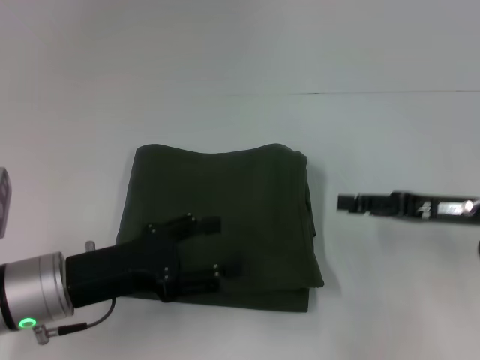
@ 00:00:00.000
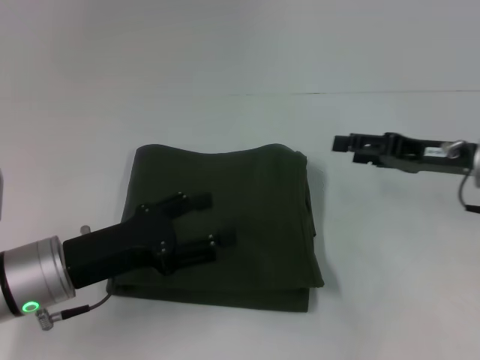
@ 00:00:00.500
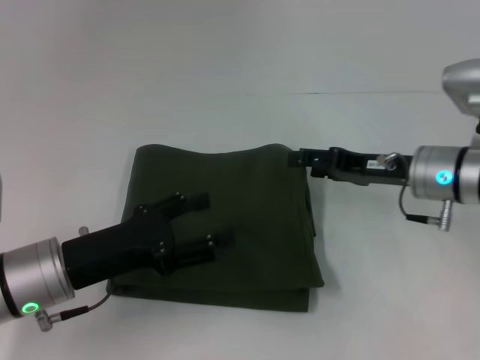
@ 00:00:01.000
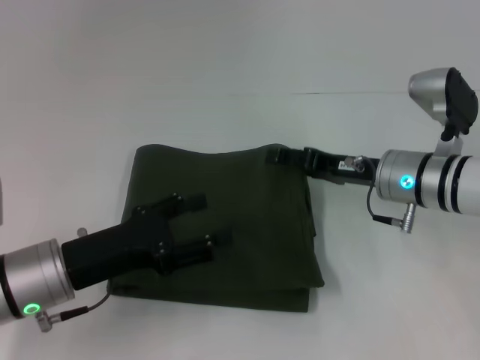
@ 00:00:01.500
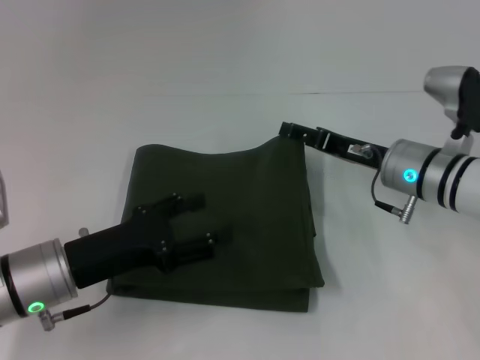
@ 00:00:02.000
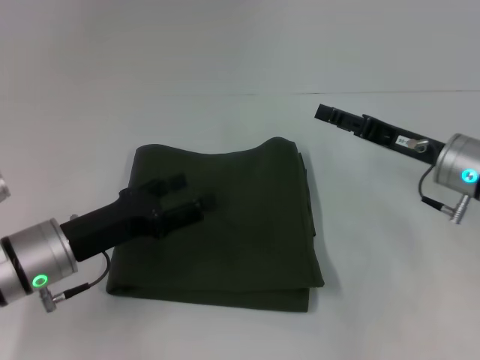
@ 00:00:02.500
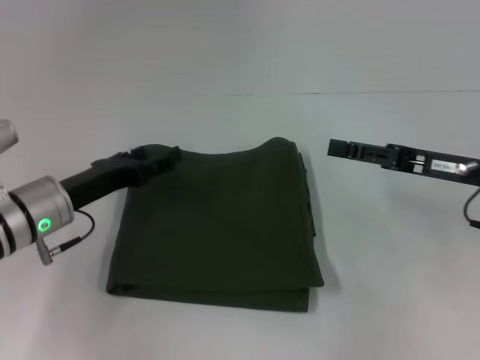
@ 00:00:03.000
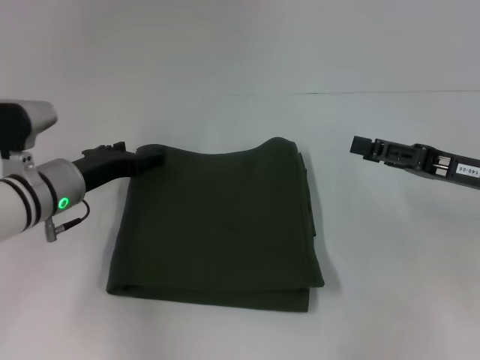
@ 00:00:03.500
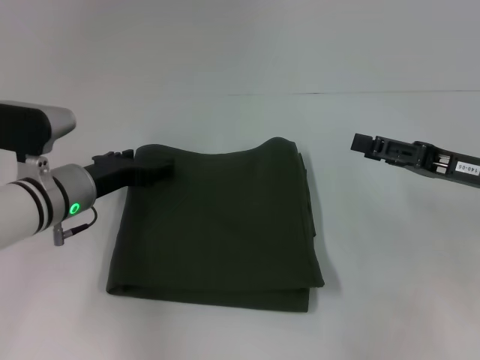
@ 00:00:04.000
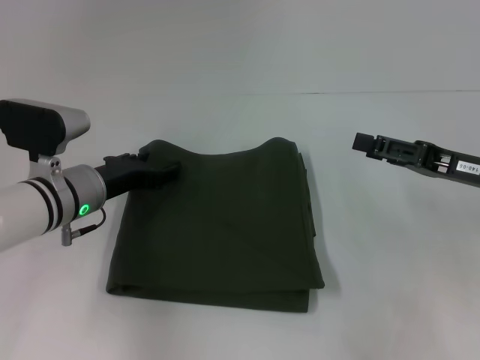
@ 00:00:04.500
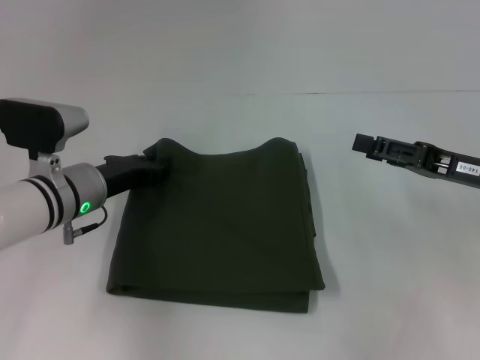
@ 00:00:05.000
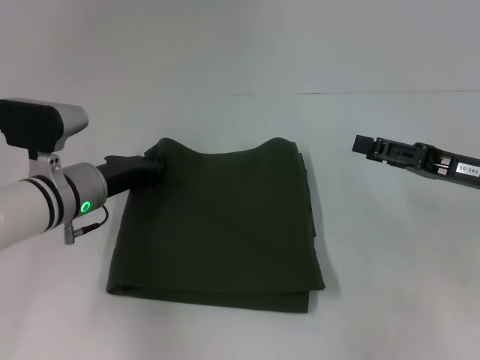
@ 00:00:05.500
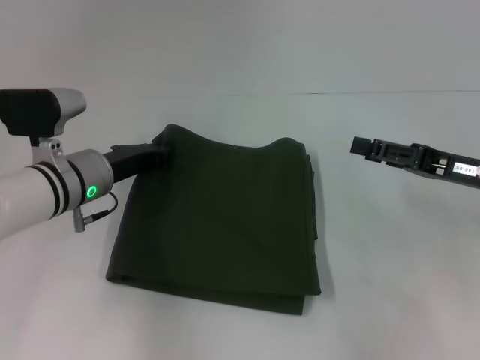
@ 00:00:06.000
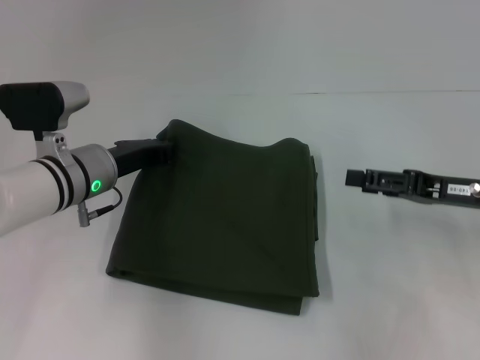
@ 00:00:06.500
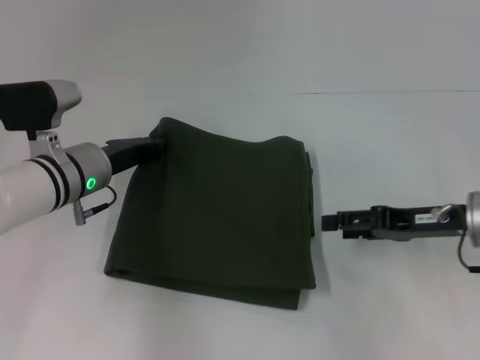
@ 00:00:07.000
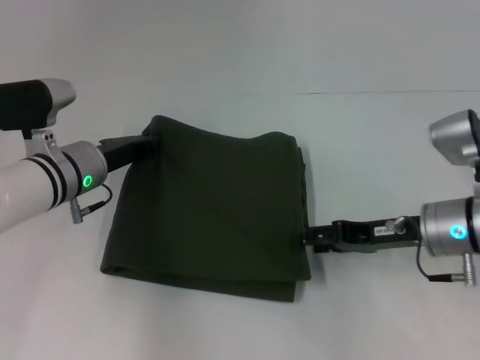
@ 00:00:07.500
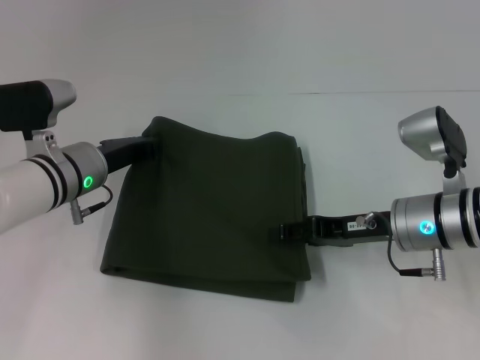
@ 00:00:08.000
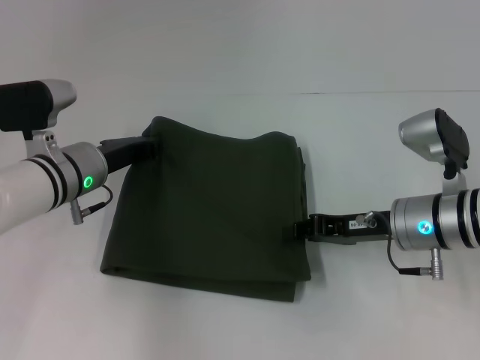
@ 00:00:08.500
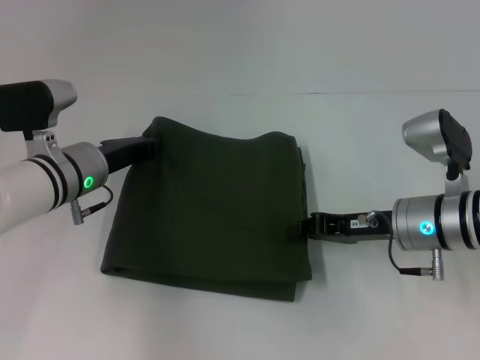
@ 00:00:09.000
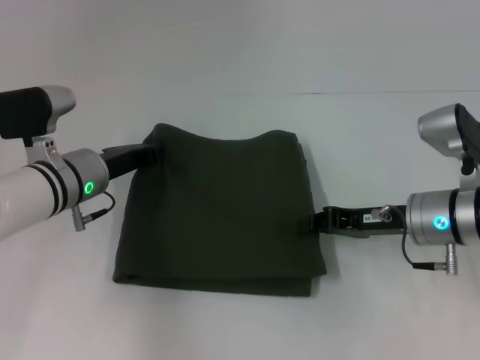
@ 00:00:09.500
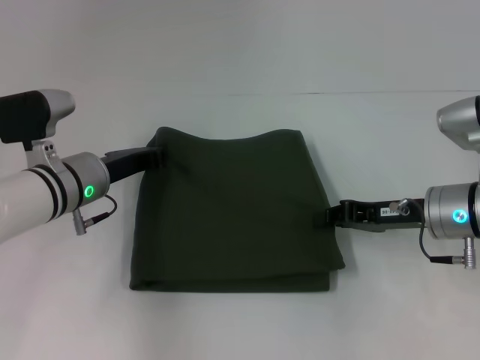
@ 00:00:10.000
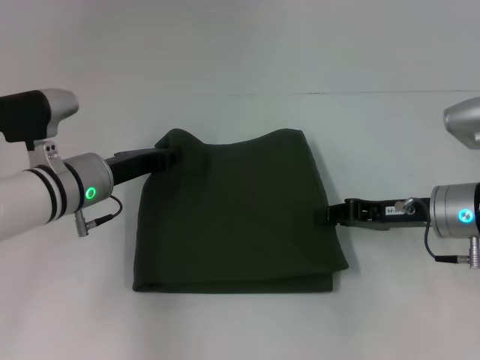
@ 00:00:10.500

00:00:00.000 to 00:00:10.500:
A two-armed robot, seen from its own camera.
00:00:00.000 to 00:00:02.000: The right gripper shifts about 10 cm to the left and forward, and opens its fingers.
00:00:02.000 to 00:00:04.000: The left gripper goes roughly 10 cm forward; the right gripper moves to the right and backward, approximately 10 cm.
00:00:04.000 to 00:00:06.500: The left gripper closes its fingers.
00:00:06.500 to 00:00:08.500: The right gripper goes roughly 10 cm to the left.
00:00:08.500 to 00:00:10.500: The grippers move only a little.

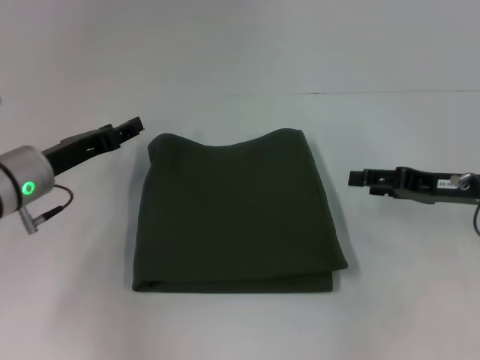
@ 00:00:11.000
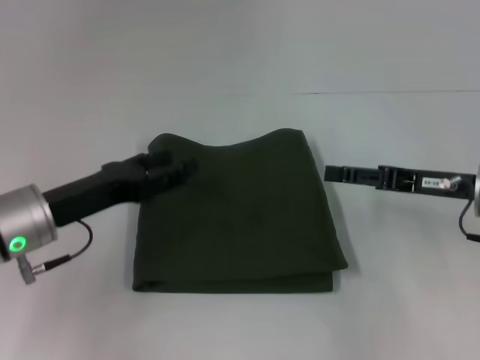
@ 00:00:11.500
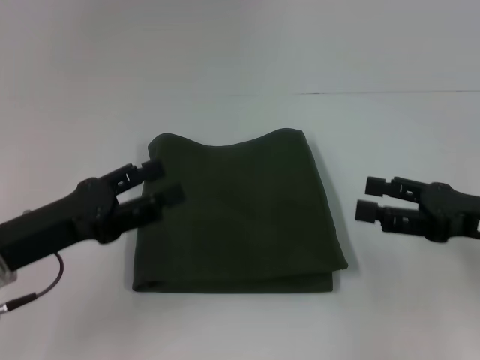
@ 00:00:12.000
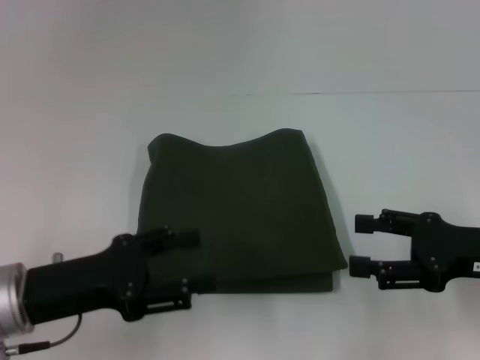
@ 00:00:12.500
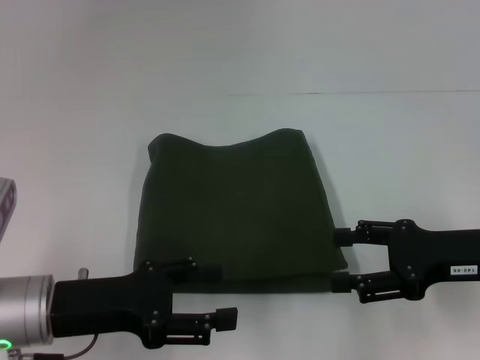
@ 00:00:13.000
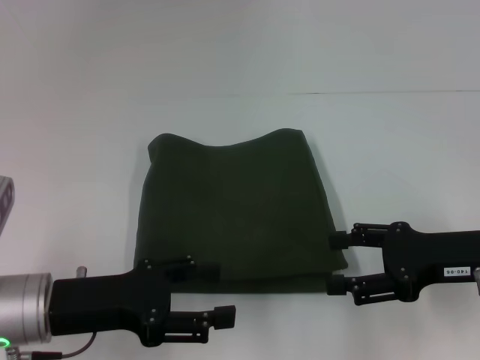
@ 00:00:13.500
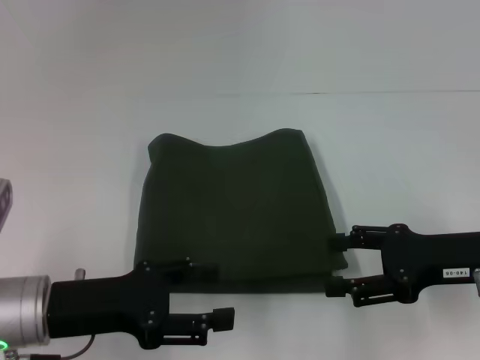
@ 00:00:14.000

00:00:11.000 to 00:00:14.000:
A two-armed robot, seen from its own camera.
00:00:11.000 to 00:00:12.500: The right gripper heads backward, covering roughly 10 cm, and opens up; the left gripper travels backward by about 15 cm, and opens.
00:00:12.500 to 00:00:14.000: The grippers move only a little.
